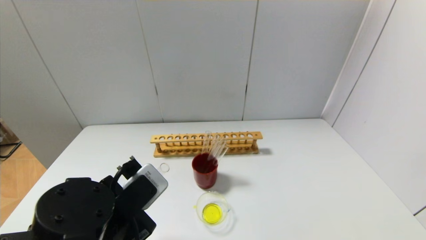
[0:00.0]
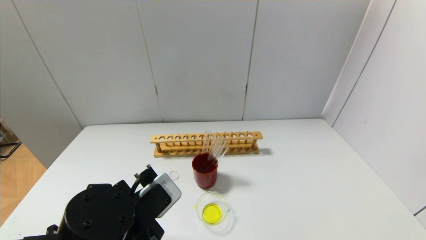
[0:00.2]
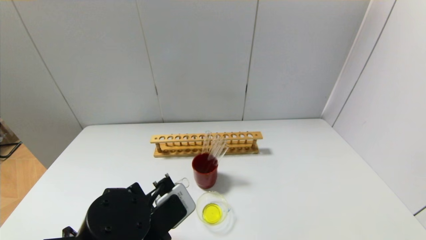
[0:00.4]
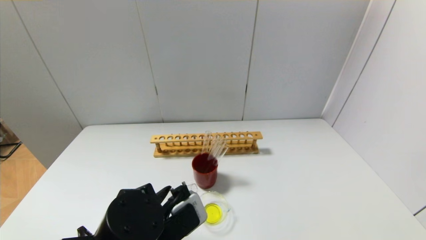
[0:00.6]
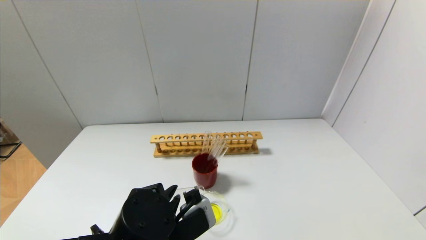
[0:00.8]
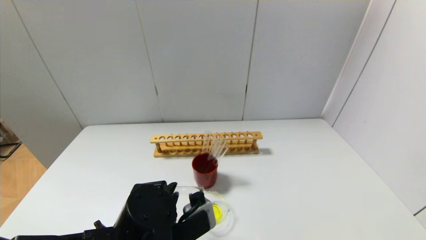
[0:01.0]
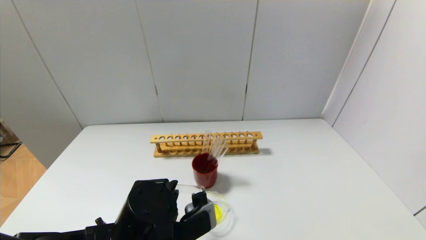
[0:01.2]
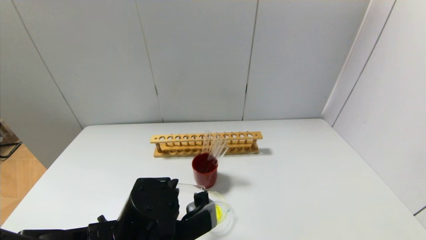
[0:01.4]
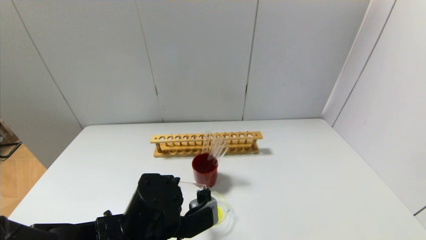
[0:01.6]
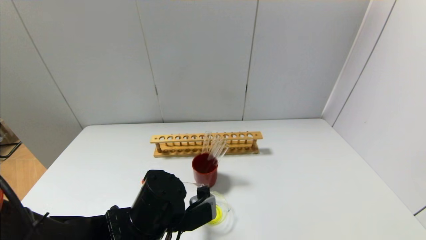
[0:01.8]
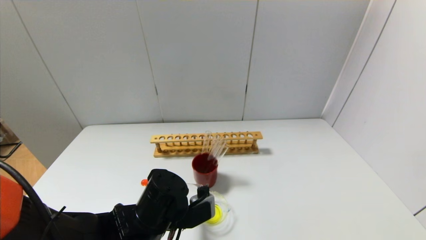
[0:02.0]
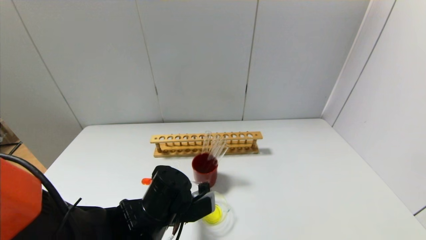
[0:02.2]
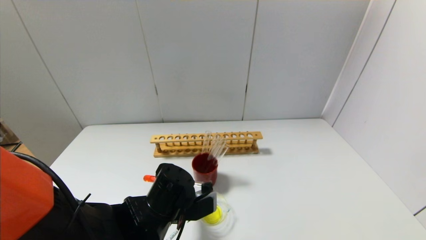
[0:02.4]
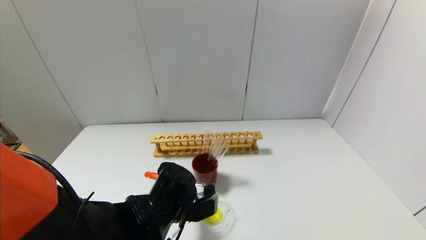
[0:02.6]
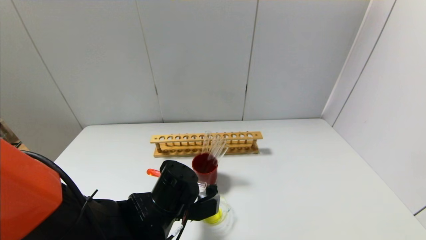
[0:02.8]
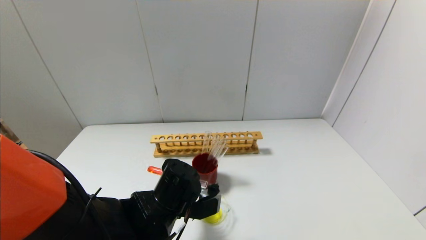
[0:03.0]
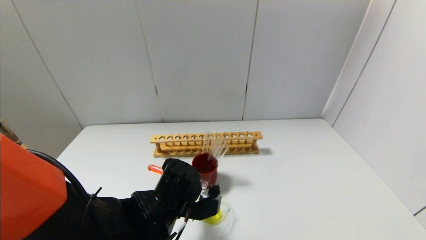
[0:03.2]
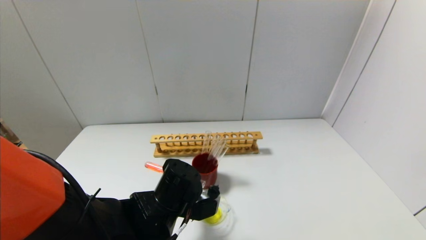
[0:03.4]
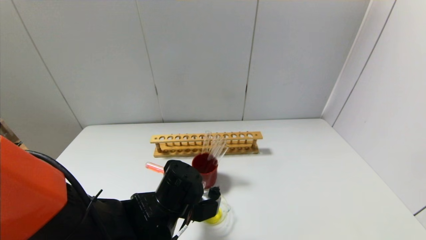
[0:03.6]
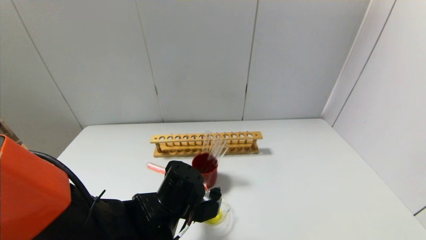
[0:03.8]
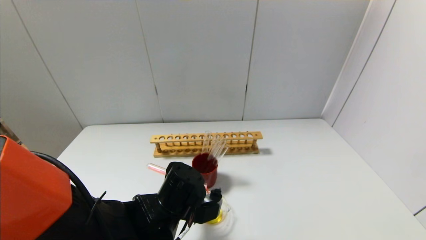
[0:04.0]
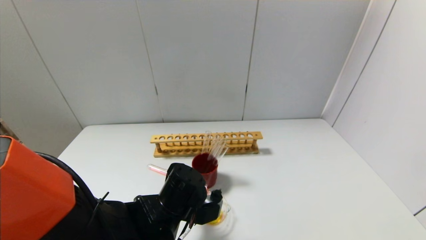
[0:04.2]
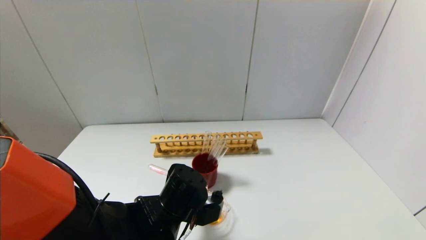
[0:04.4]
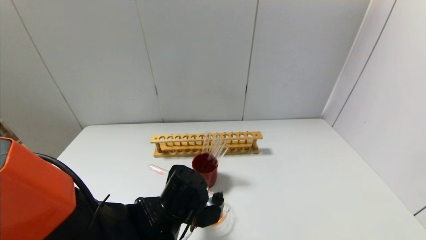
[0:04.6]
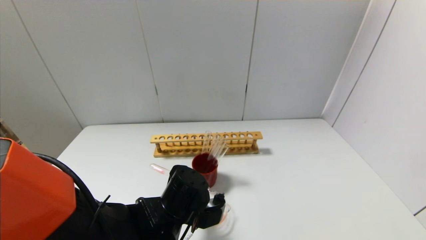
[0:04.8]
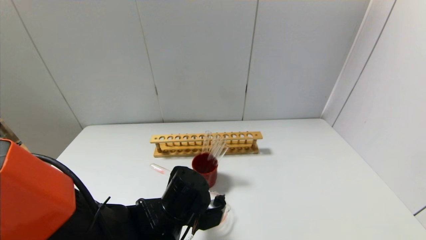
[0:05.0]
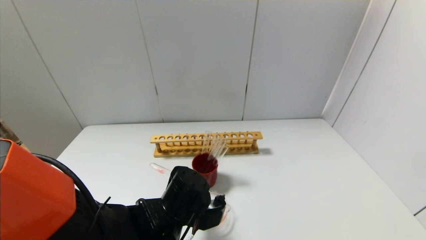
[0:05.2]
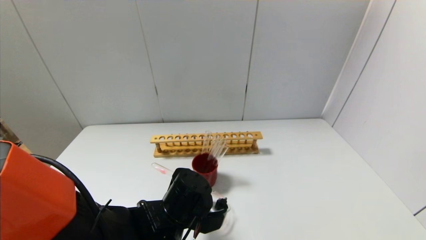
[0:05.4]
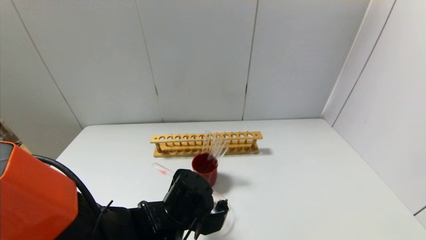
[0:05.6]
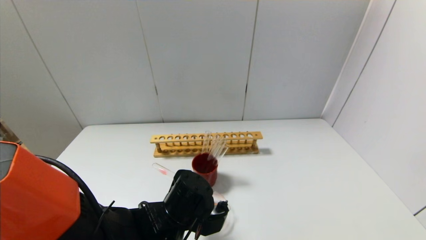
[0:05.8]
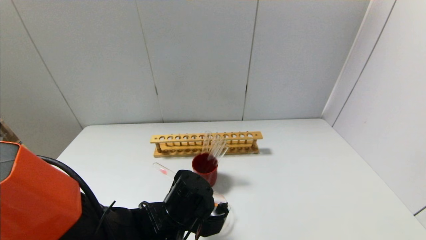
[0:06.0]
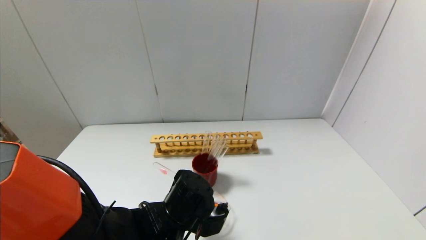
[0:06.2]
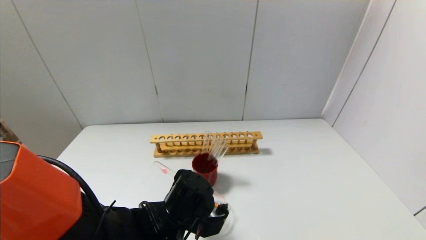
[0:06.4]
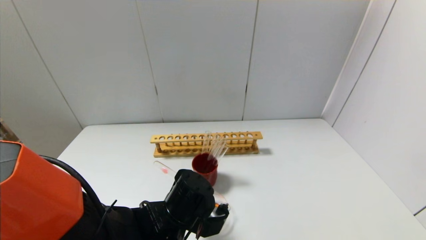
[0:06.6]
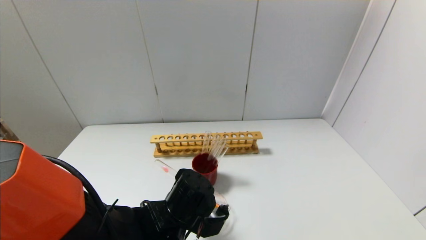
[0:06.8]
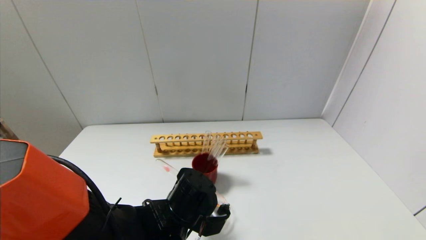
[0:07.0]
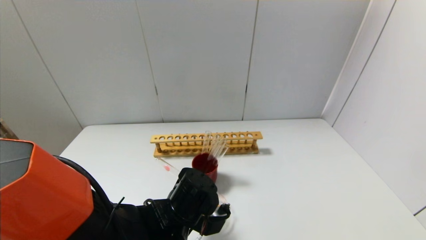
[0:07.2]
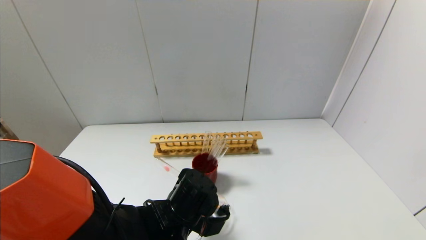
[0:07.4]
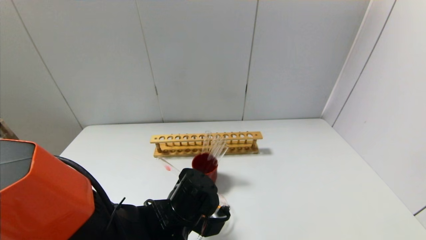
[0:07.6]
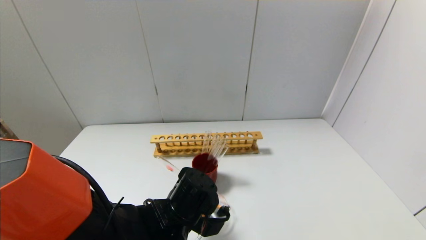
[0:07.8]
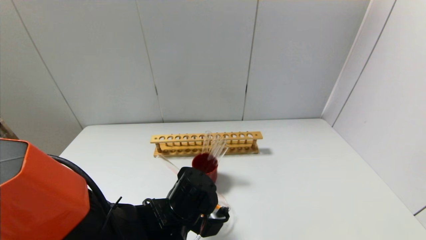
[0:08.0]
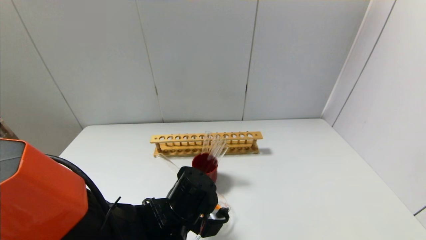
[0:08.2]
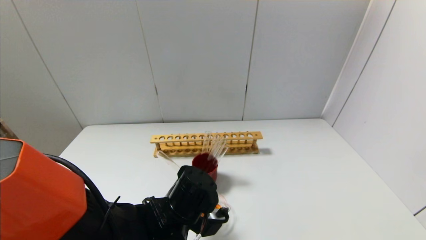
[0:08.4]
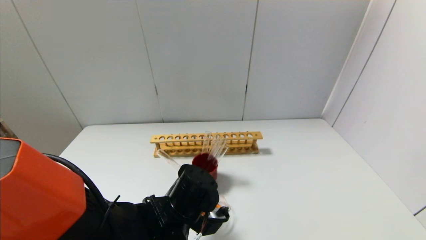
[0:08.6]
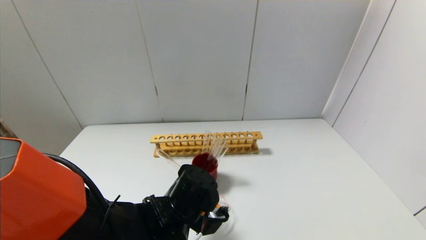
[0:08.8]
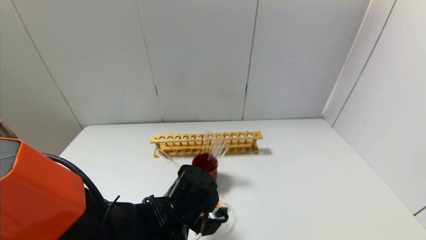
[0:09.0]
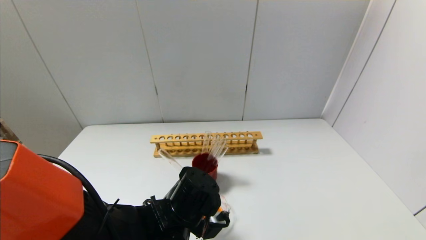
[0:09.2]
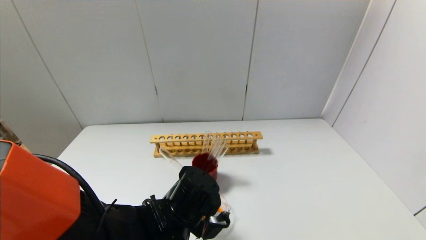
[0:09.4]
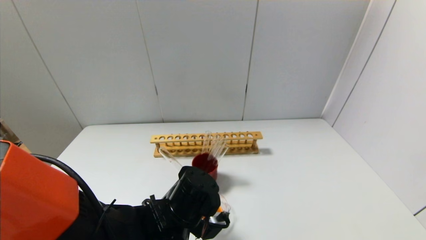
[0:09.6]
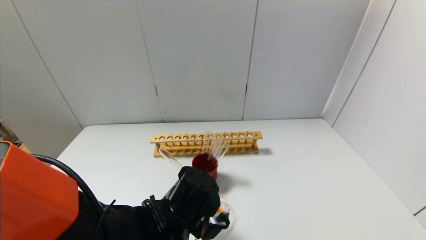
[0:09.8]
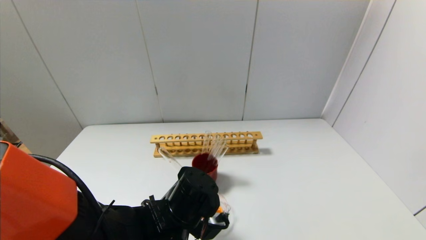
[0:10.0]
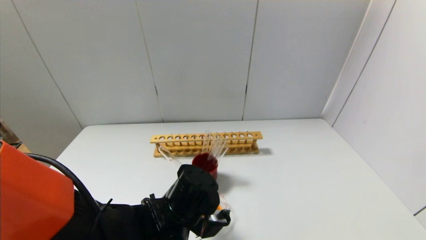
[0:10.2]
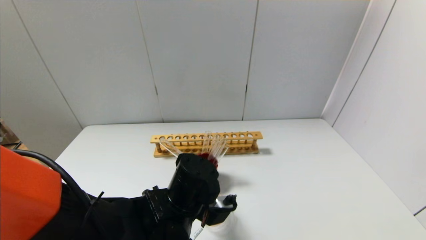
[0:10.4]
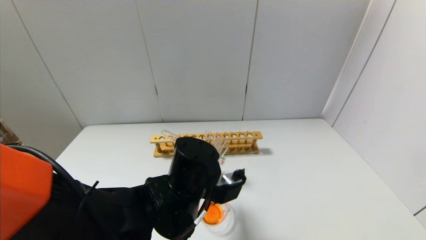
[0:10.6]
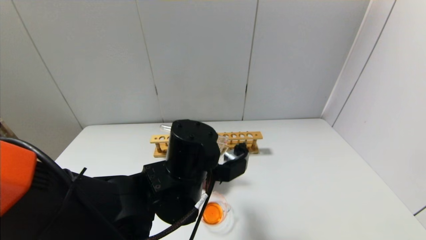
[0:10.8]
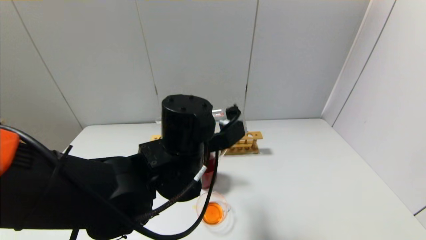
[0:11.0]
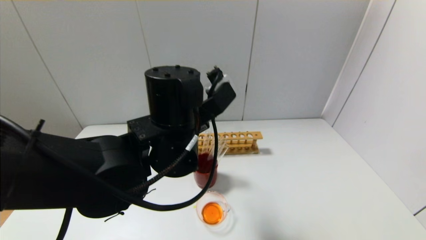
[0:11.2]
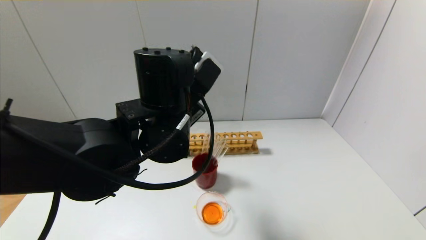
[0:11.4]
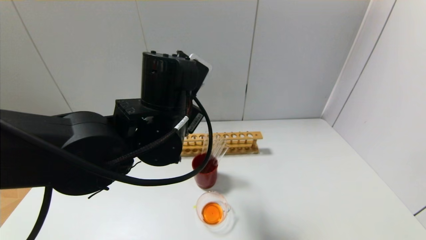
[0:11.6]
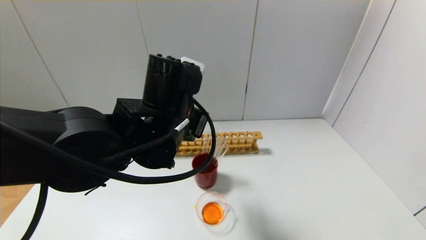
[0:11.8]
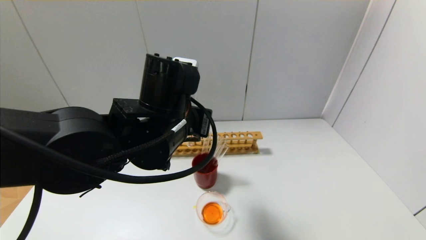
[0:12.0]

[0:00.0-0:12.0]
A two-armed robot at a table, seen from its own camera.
Step, 0:00.0 to 0:10.4: Pour the red reagent into the graduated cylinder with the left gripper.
0:00.0 to 0:01.6: The left gripper goes roughly 5 cm to the right.
0:01.6 to 0:03.0: The left gripper ends up some 5 cm from where it was.
0:03.0 to 0:06.0: The grippers make only small movements.
0:06.0 to 0:10.4: The grippers move only a little.
0:10.4 to 0:12.0: The left gripper shifts approximately 10 cm upward.

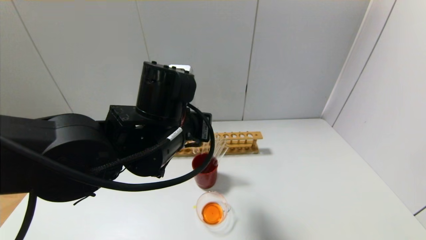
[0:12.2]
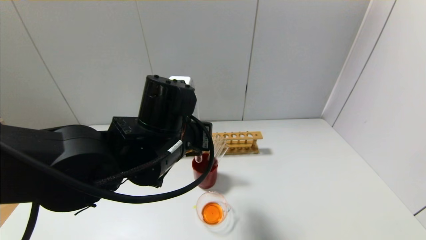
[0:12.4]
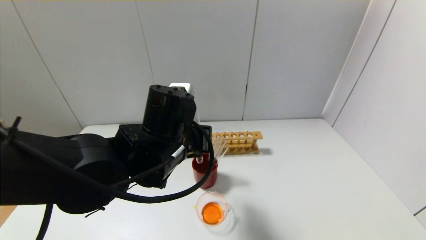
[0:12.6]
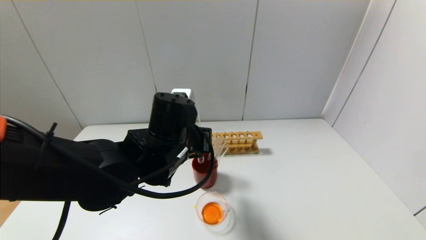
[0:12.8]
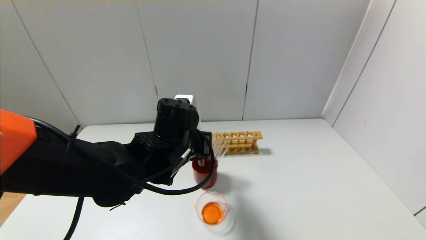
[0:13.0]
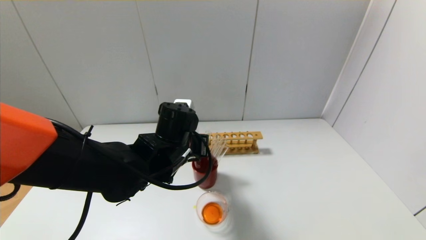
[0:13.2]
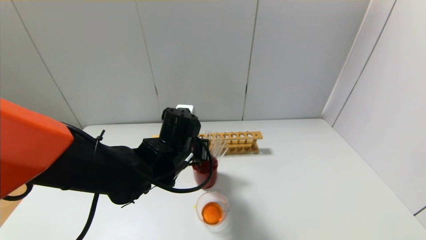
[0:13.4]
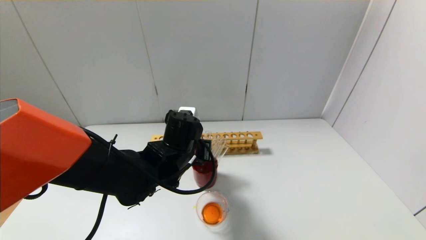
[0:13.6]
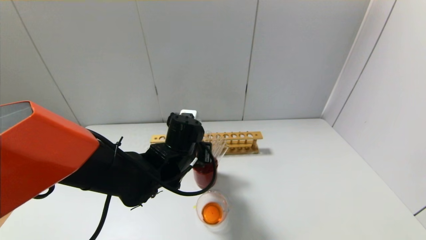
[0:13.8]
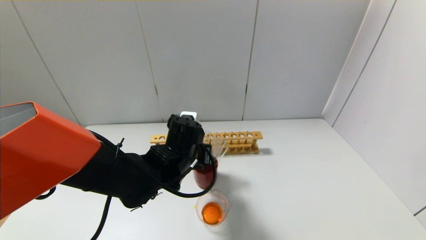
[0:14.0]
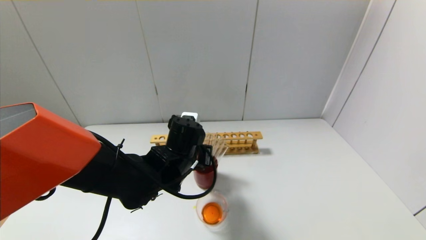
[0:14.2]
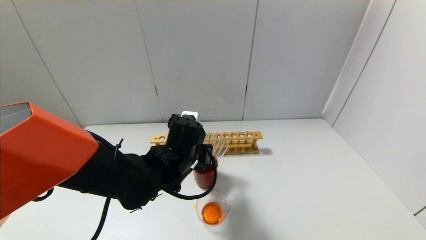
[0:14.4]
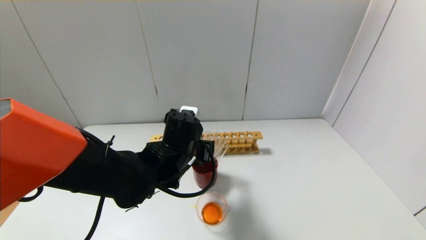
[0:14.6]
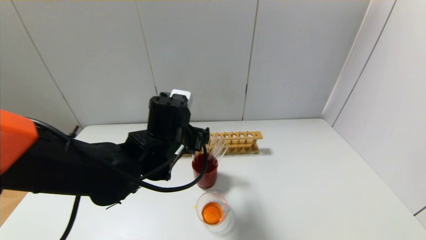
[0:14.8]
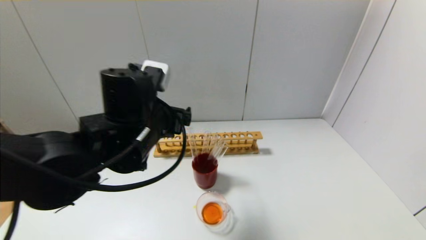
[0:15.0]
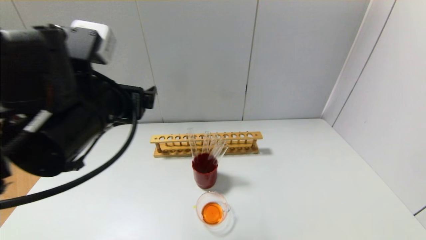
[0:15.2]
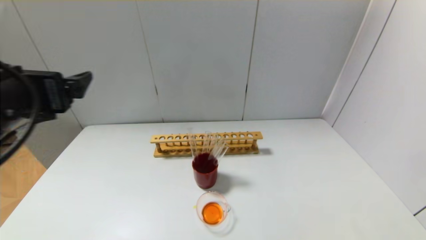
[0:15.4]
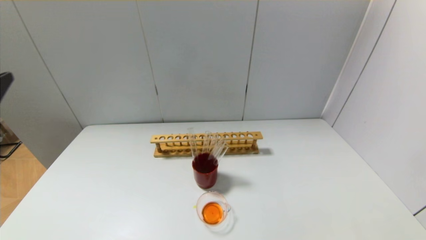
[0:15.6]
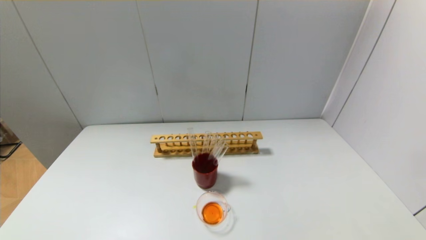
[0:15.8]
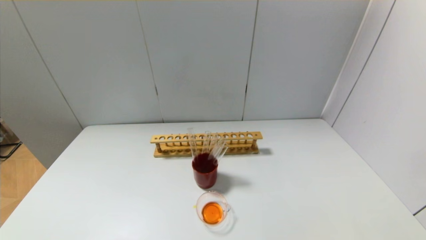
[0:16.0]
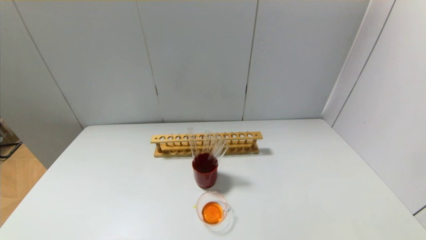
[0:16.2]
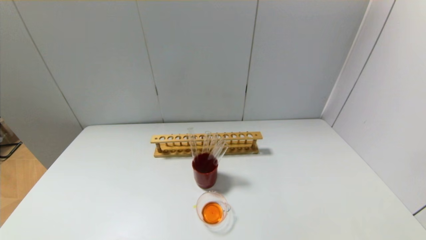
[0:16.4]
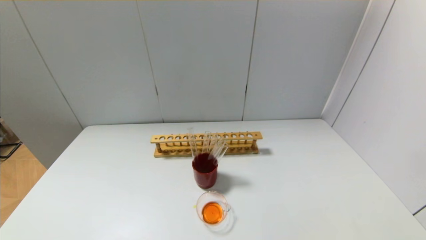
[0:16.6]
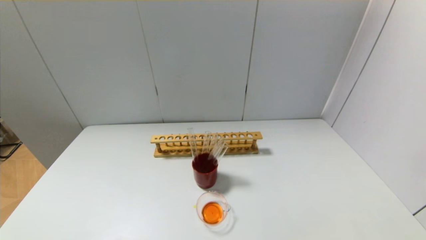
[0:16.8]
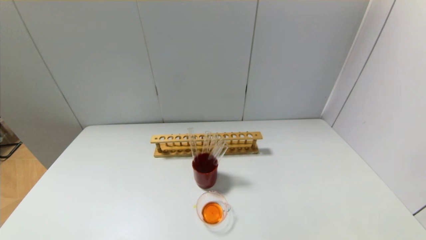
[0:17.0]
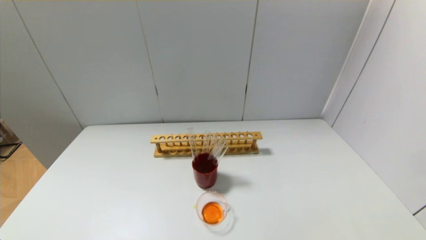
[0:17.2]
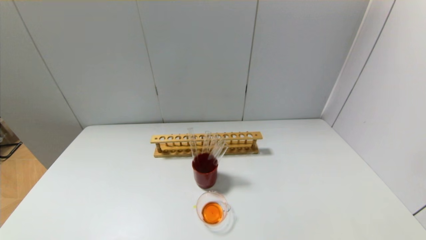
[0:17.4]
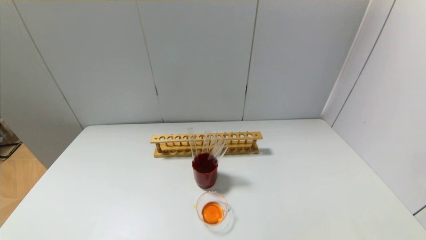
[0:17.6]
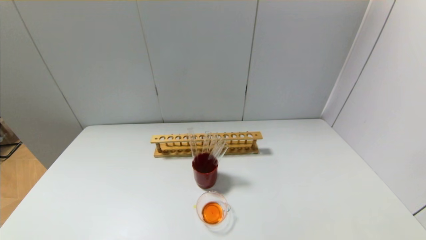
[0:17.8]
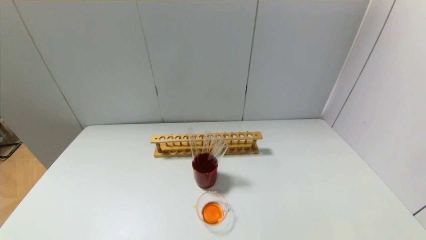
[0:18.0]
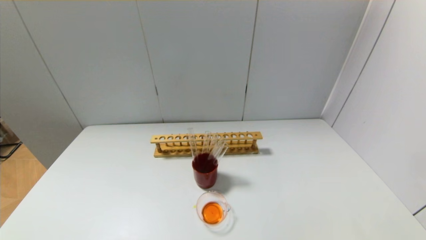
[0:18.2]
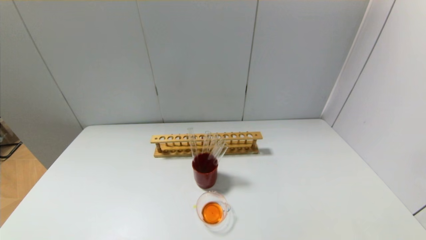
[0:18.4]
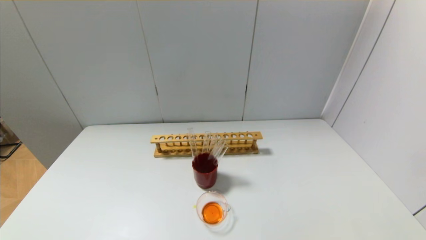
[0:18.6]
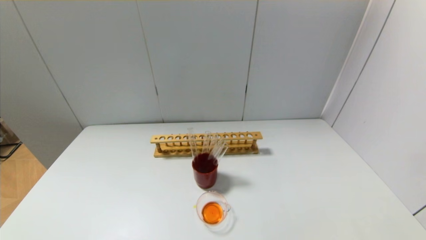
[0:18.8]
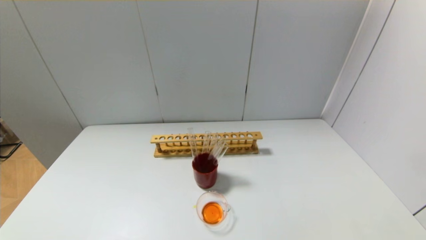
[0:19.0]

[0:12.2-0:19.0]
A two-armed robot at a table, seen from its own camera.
Step, 0:12.2 to 0:14.2: Place the test tube into the brown cup with the left gripper.
0:12.2 to 0:13.6: The left gripper is displaced downward and forward by roughly 10 cm.
0:13.6 to 0:15.0: The left gripper travels upward, to the left and backward by roughly 15 cm, and opens up.
0:15.0 to 0:16.2: The left gripper shifts approximately 35 cm backward and to the left.
